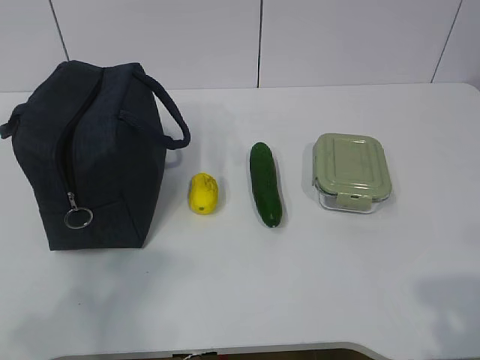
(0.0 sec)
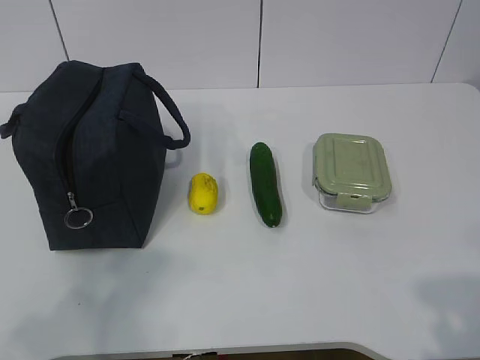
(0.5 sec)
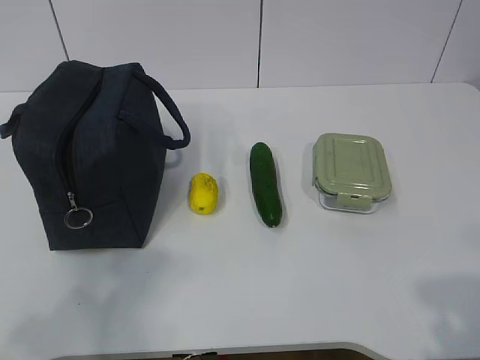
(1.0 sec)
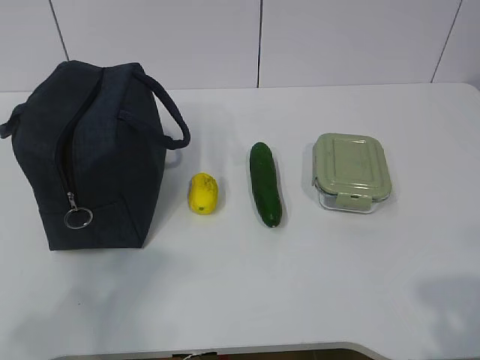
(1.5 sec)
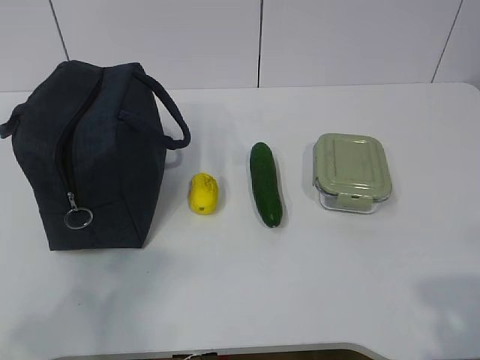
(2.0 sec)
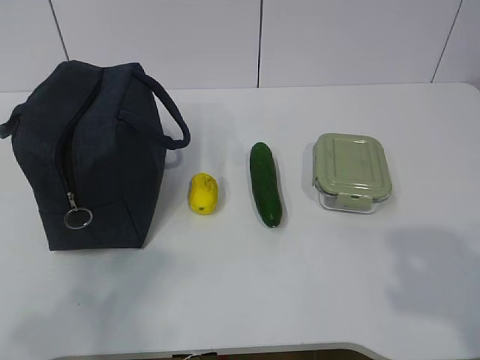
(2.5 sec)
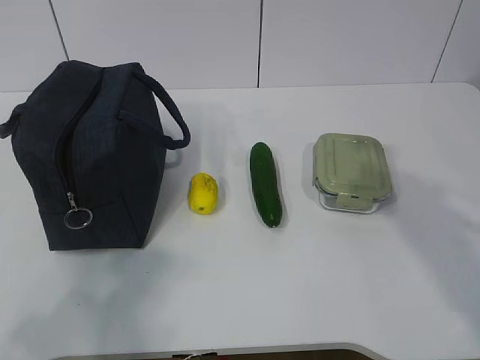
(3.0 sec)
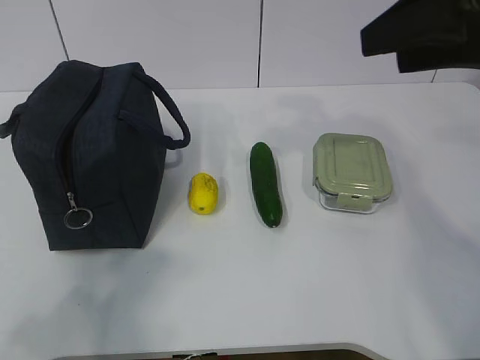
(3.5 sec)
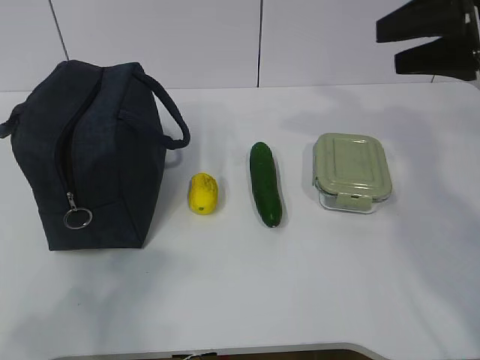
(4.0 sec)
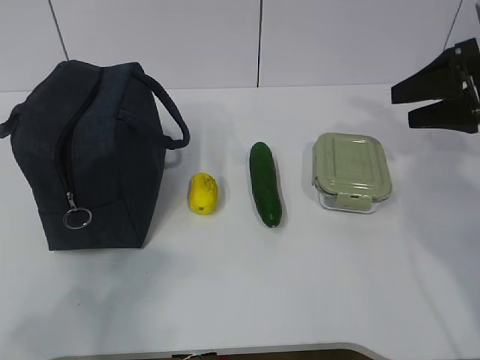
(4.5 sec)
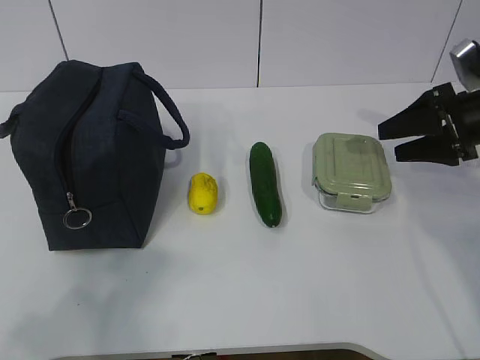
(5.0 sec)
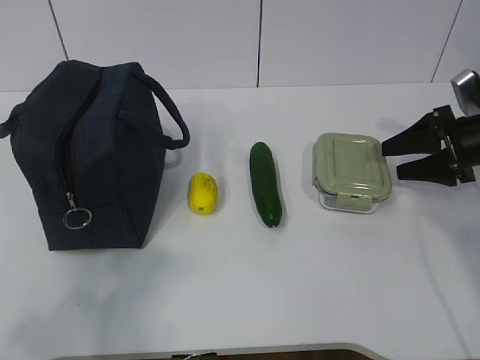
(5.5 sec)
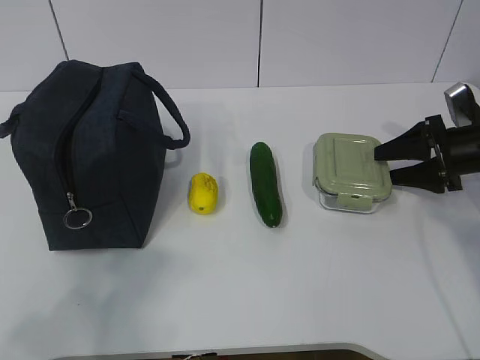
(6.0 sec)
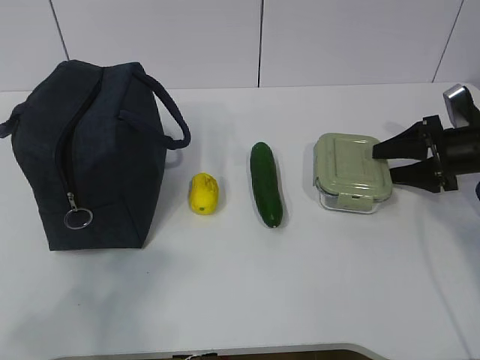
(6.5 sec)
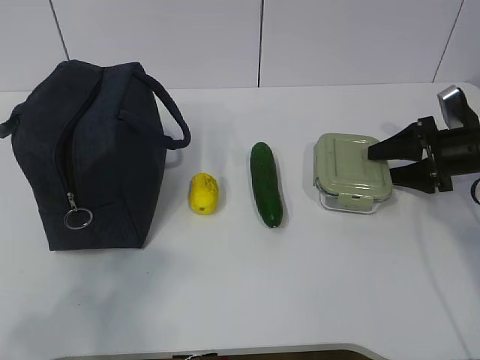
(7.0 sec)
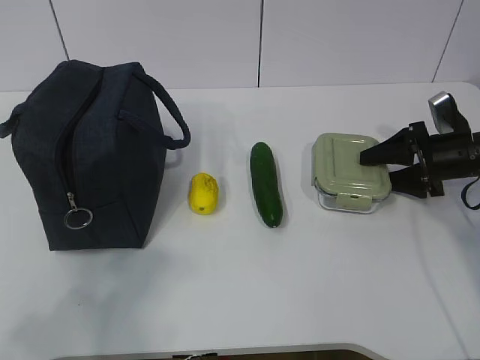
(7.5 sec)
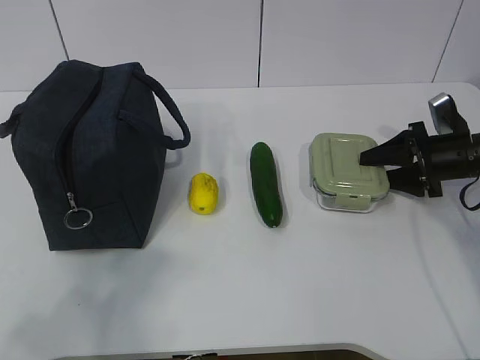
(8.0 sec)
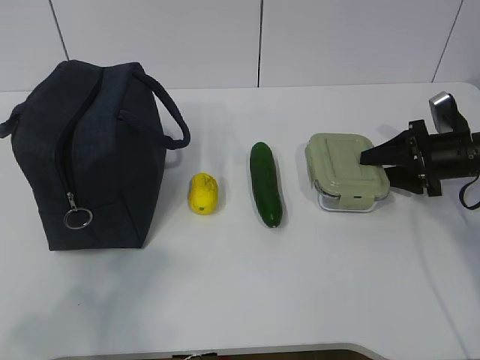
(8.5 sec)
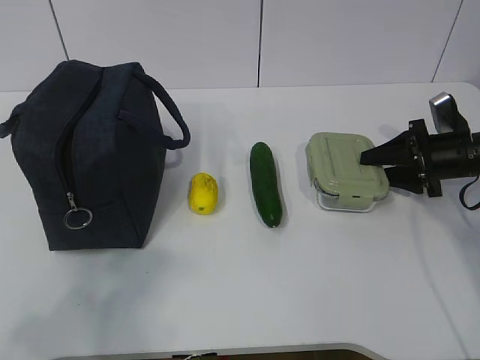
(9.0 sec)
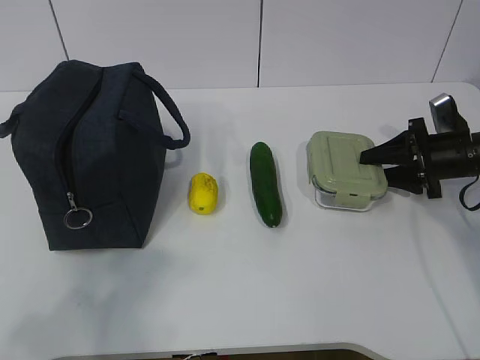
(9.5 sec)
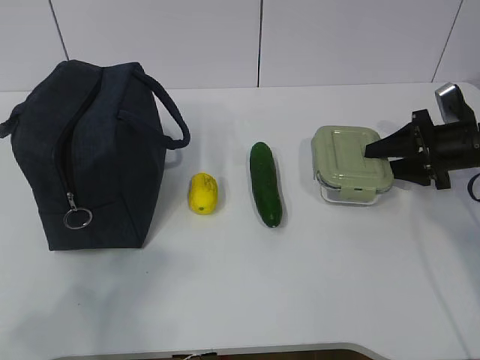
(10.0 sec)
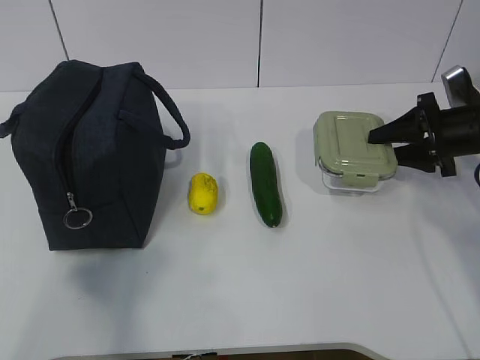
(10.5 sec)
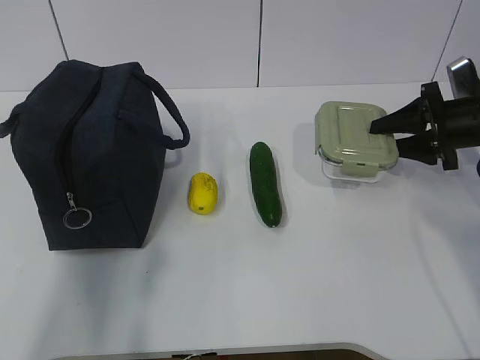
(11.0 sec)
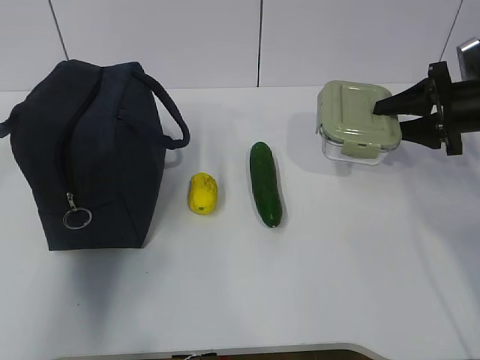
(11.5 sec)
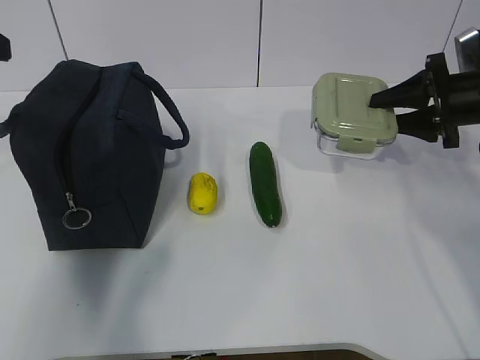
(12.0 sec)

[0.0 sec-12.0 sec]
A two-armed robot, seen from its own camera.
Step, 0.0 sec to 8.0 sec: Grab the lunch box with your right hand.
2.0 sec to 4.0 sec: The right gripper heads forward, covering some 35 cm.
4.0 sec to 6.0 sec: The right gripper moves downward, roughly 20 cm.
6.0 sec to 10.0 sec: There are only small adjustments of the grippers.
10.0 sec to 12.0 sec: The left gripper moves forward, some 30 cm, while the right gripper moves upward, some 5 cm.

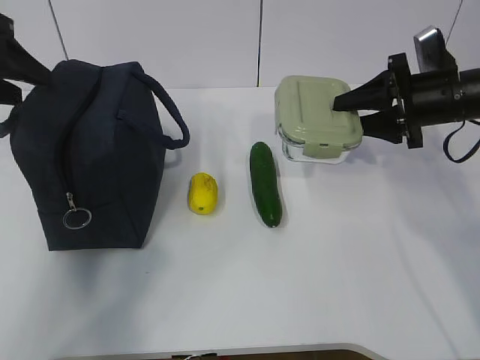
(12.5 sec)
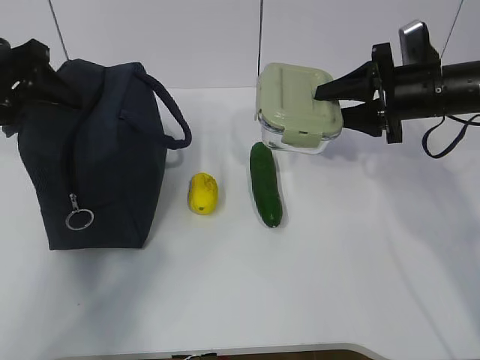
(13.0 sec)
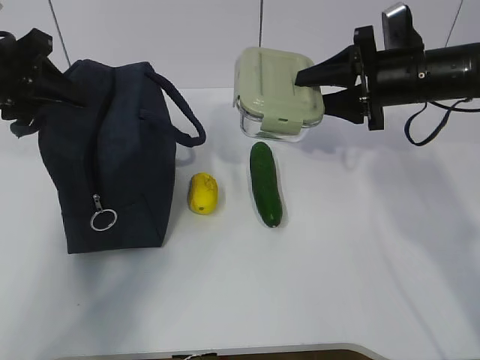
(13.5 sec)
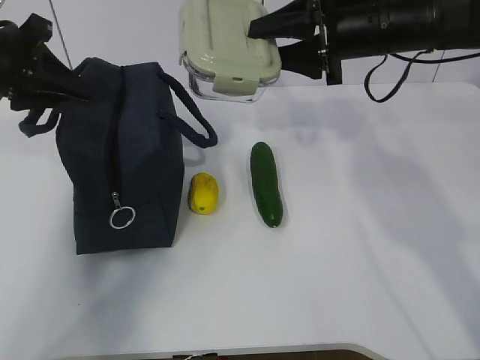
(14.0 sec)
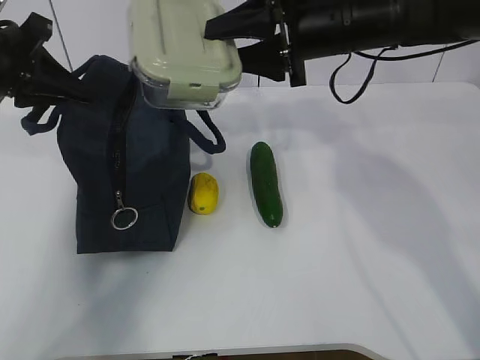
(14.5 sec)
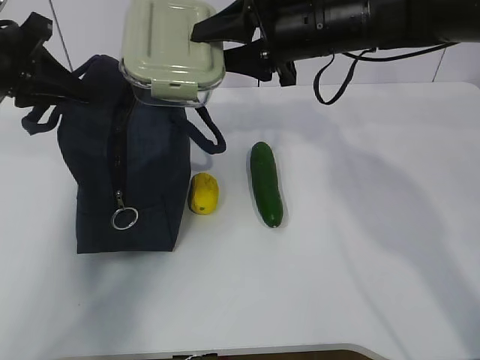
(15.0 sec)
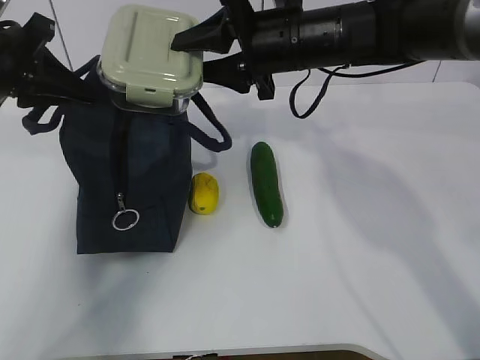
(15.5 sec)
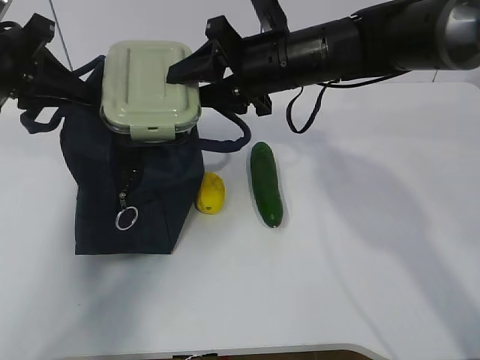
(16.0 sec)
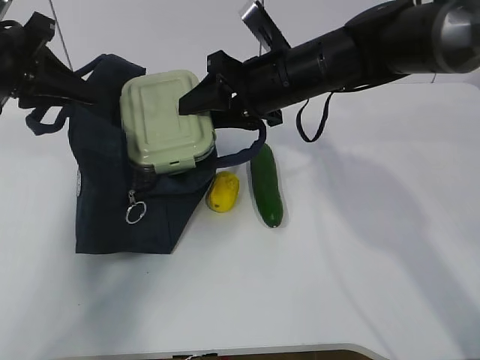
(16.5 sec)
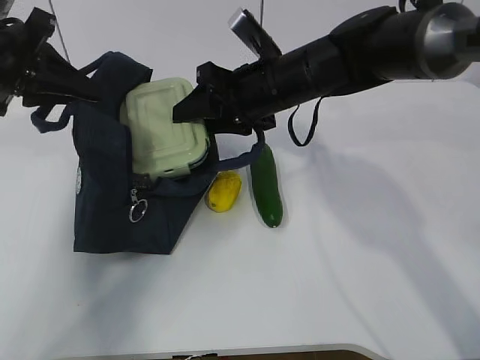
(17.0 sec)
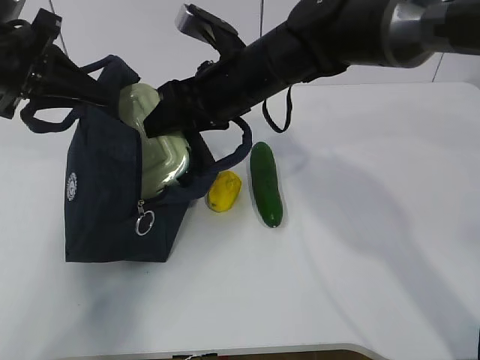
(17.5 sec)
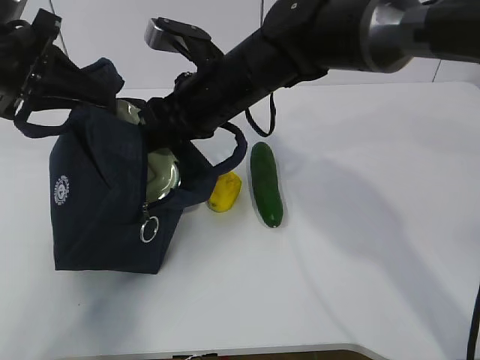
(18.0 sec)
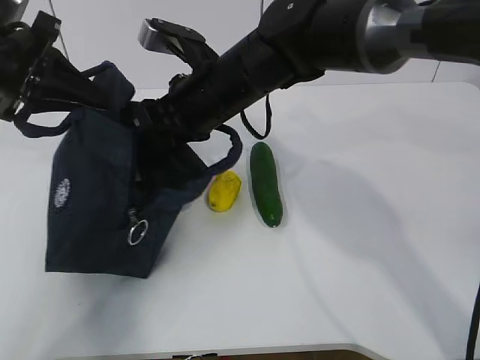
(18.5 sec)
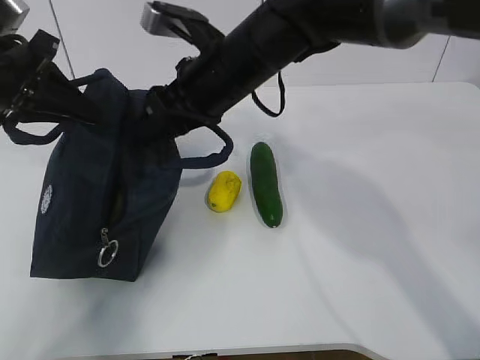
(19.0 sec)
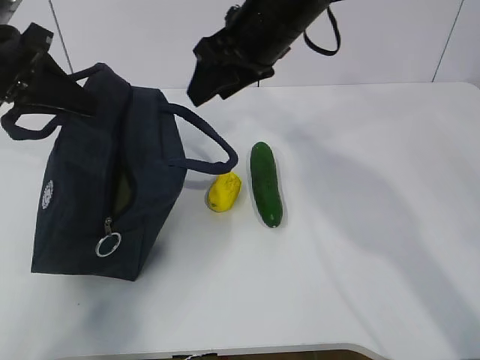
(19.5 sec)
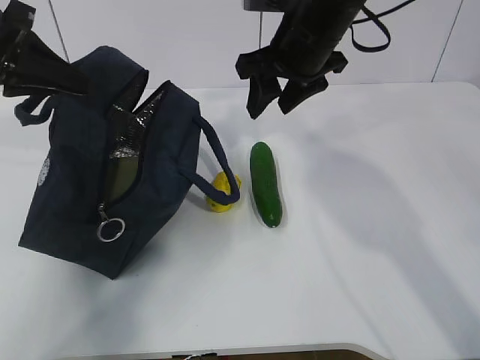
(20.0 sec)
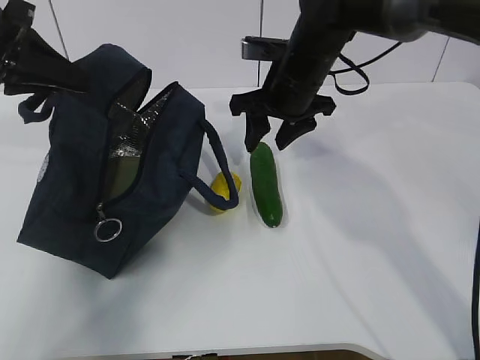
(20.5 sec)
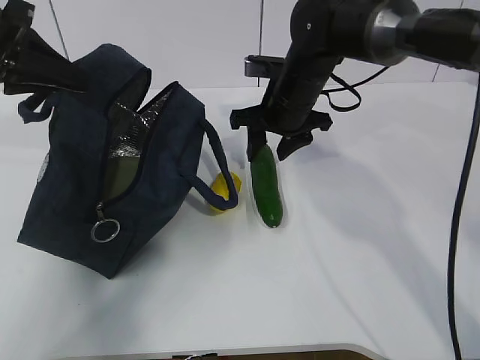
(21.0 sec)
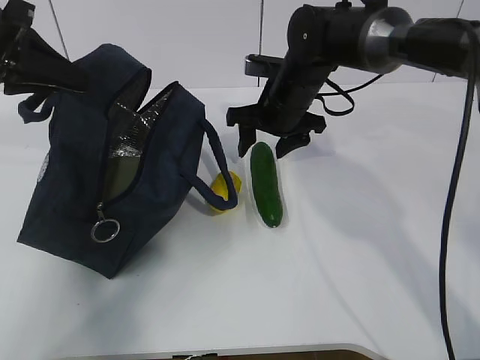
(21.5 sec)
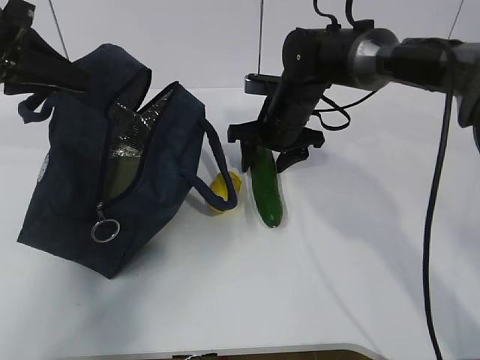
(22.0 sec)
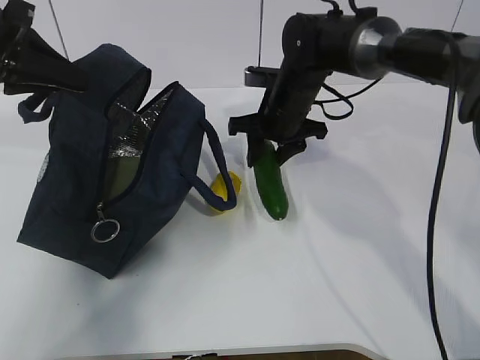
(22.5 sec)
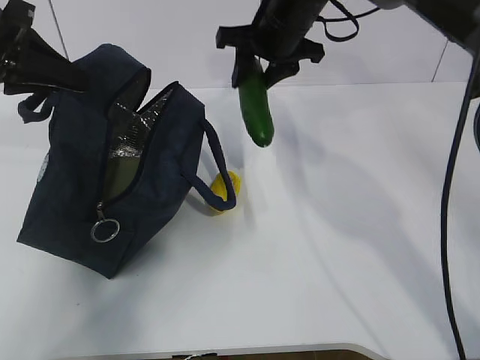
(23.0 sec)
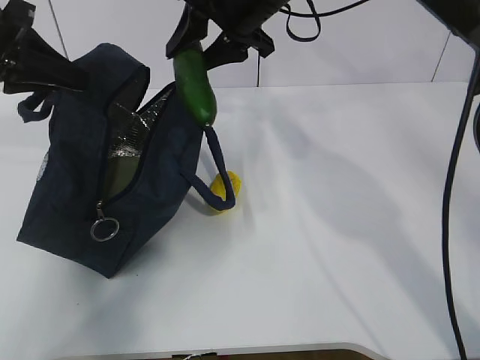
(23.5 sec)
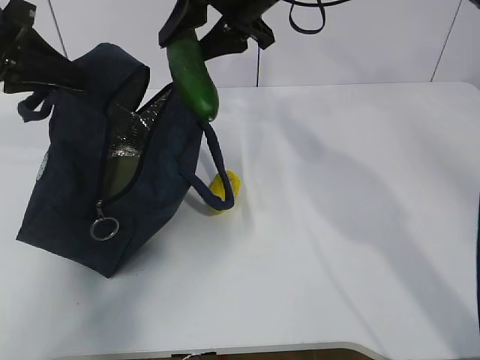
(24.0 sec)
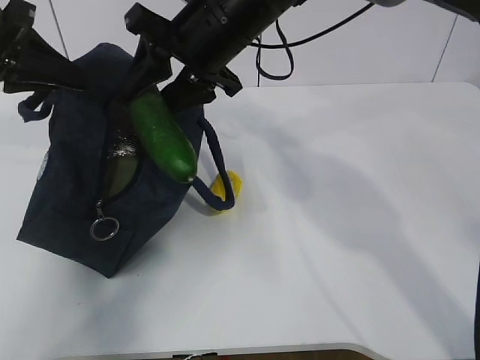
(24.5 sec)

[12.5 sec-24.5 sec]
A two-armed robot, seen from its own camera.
Step, 13.0 sec to 15.5 sec: Place it into the bag with your right hand.
Step, 16.0 sec to 18.5 sec: Grab the cucumber with your right hand.
Step, 19.0 sec to 21.5 sec: Place it into the bag with your right hand.
12.5 sec to 14.5 sec: The left gripper closes; the right gripper shifts roughly 15 cm to the left and upward.
14.5 sec to 16.5 sec: The right gripper shifts approximately 10 cm downward and to the left.
16.5 sec to 18.5 sec: The right gripper moves to the left, approximately 10 cm.
18.5 sec to 20.5 sec: The right gripper is displaced to the right and forward by approximately 10 cm.
20.5 sec to 22.5 sec: The right gripper travels downward by approximately 5 cm.
22.5 sec to 24.5 sec: The right gripper moves upward, to the left and backward, some 15 cm.

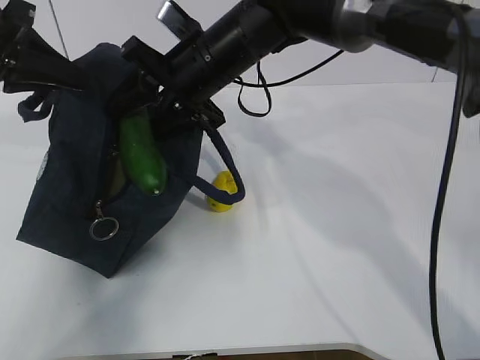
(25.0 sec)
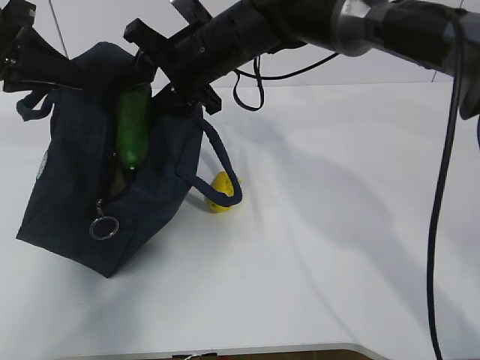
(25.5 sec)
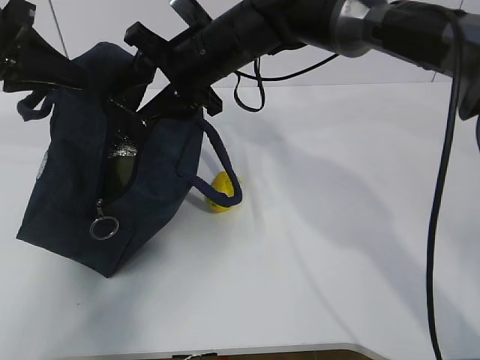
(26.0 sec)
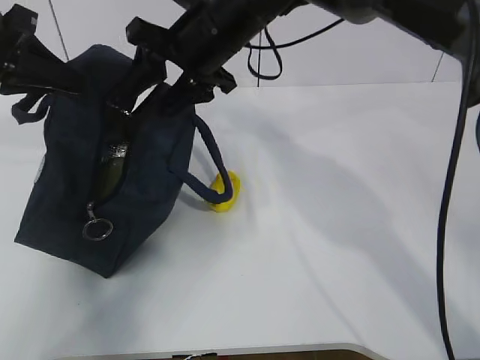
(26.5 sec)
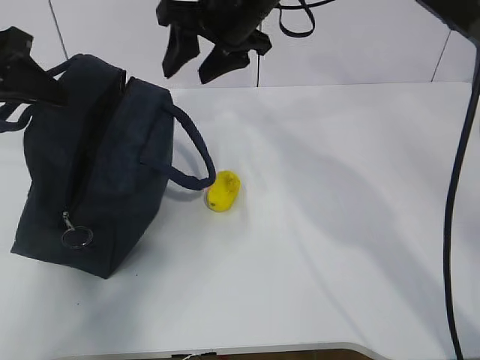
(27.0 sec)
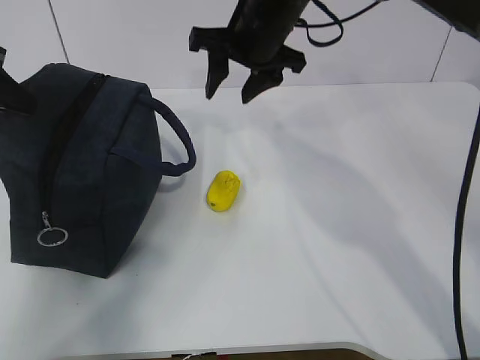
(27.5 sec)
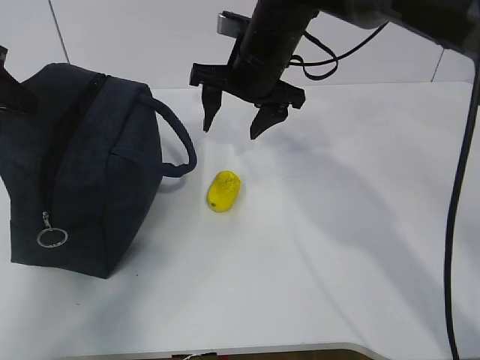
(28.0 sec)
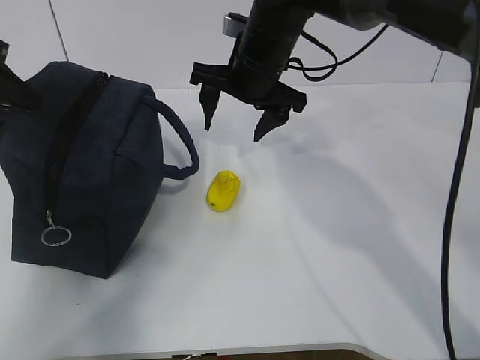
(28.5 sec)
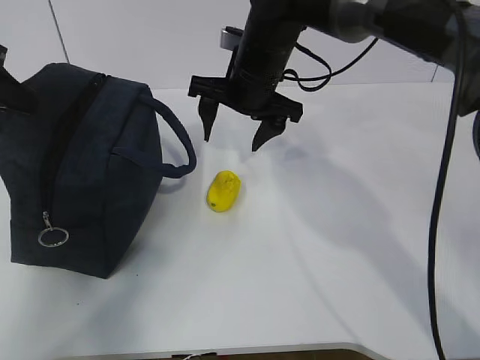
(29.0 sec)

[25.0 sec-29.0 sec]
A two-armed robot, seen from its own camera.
Step, 25.0 sec to 27.0 sec: Grab the lemon with your right hand.
25.0 sec to 27.0 sec: The right gripper moves upward, some 5 cm.
27.0 sec to 29.0 sec: The right gripper is displaced downward by about 10 cm.
